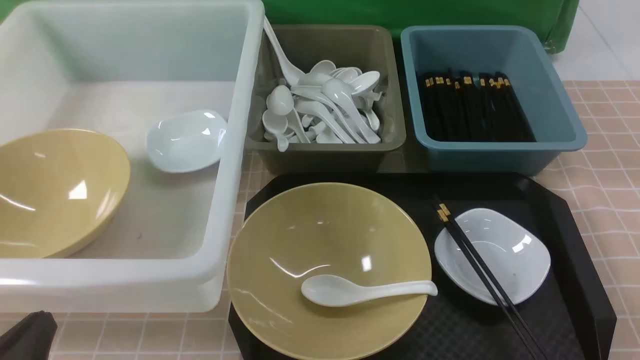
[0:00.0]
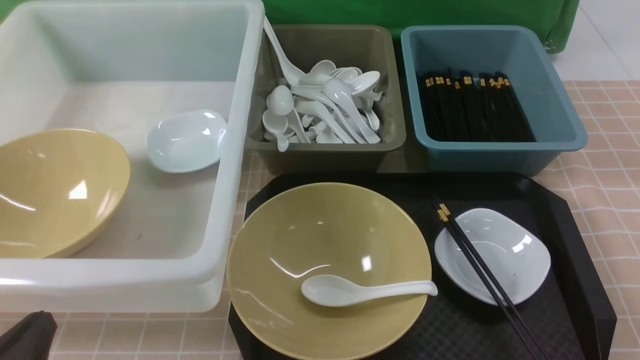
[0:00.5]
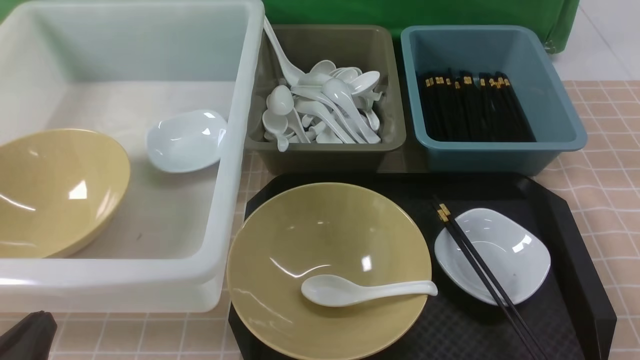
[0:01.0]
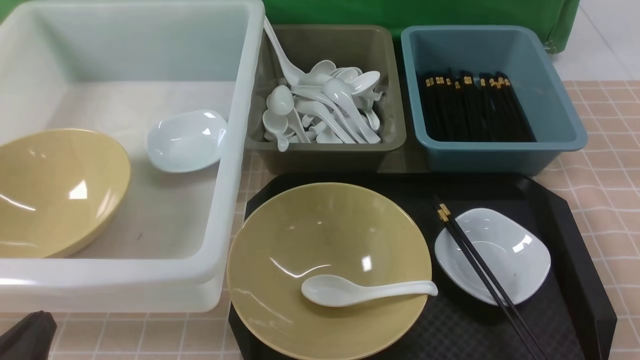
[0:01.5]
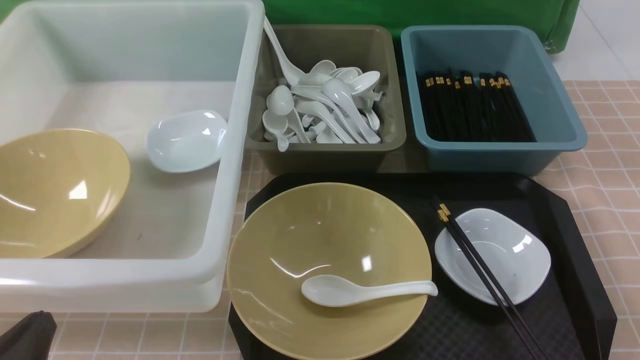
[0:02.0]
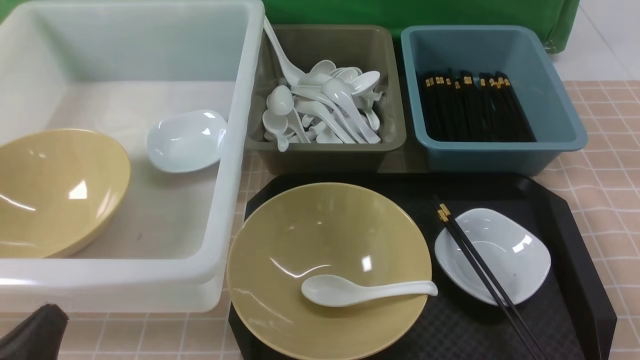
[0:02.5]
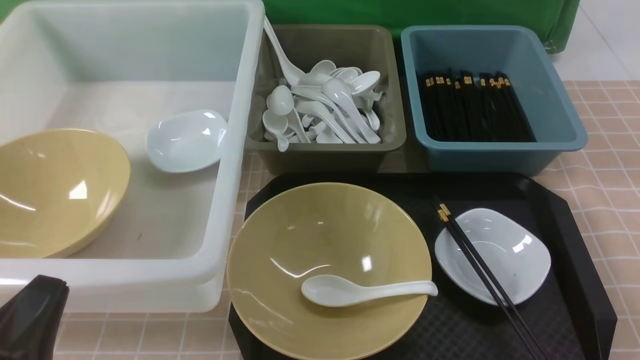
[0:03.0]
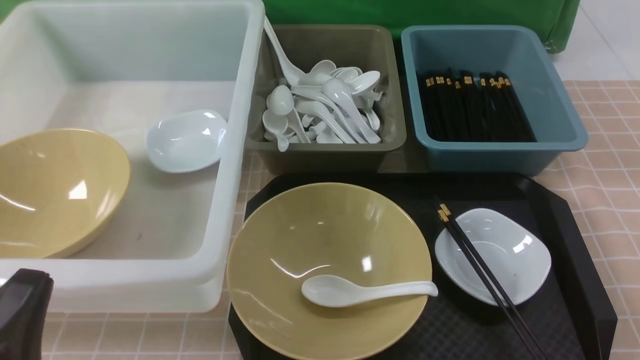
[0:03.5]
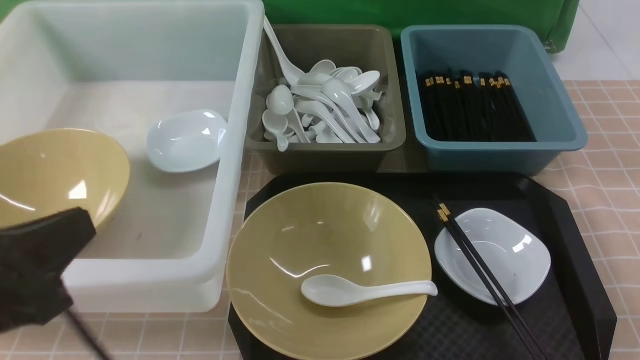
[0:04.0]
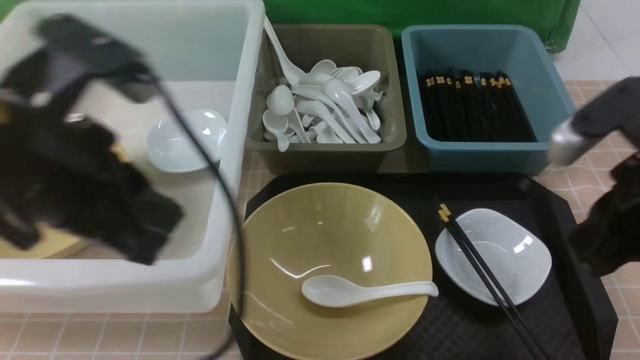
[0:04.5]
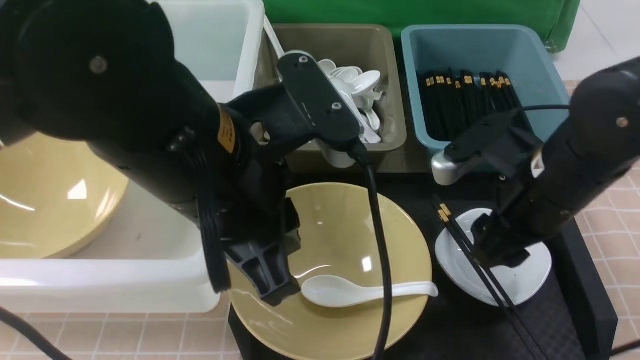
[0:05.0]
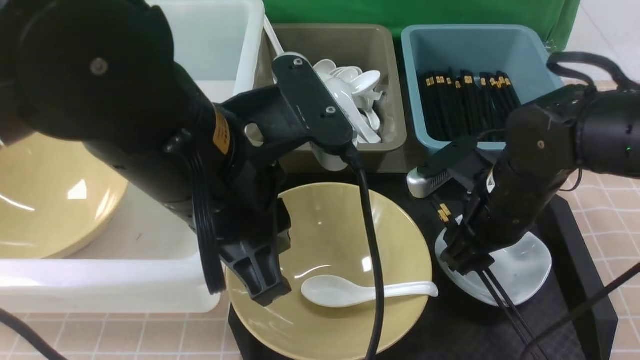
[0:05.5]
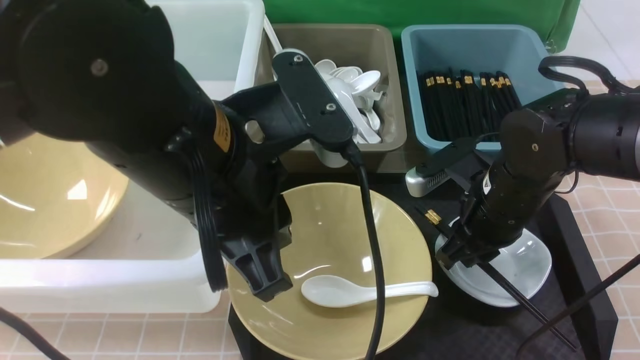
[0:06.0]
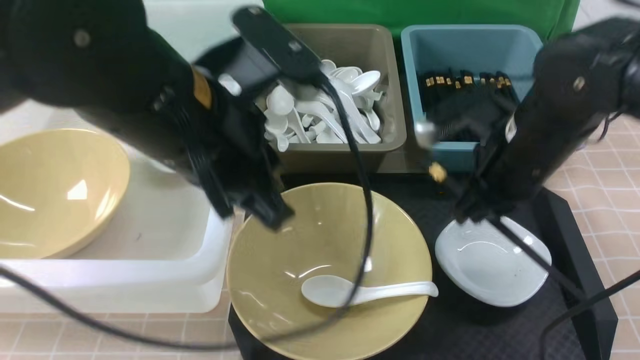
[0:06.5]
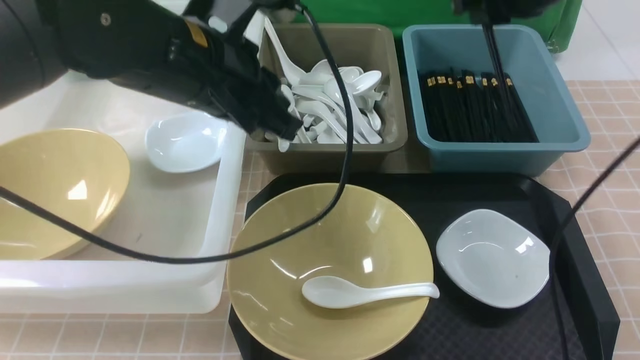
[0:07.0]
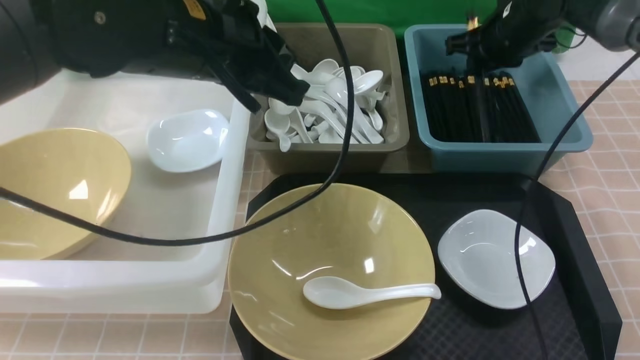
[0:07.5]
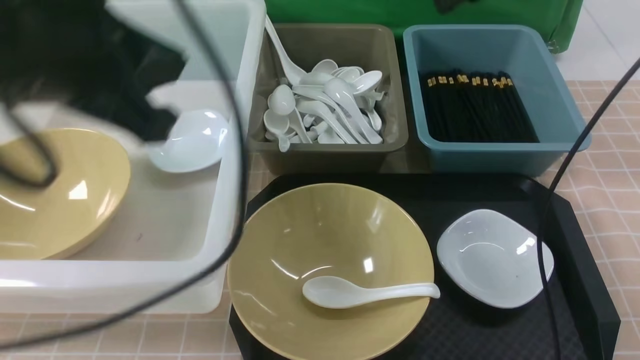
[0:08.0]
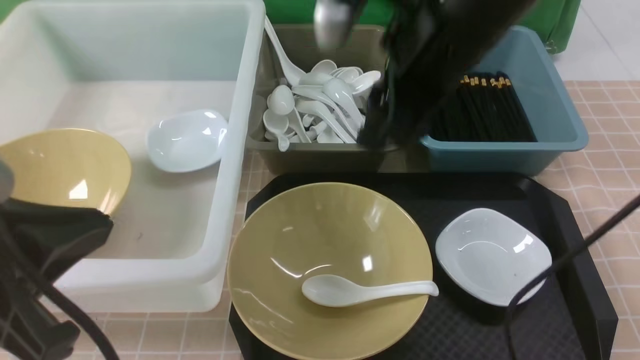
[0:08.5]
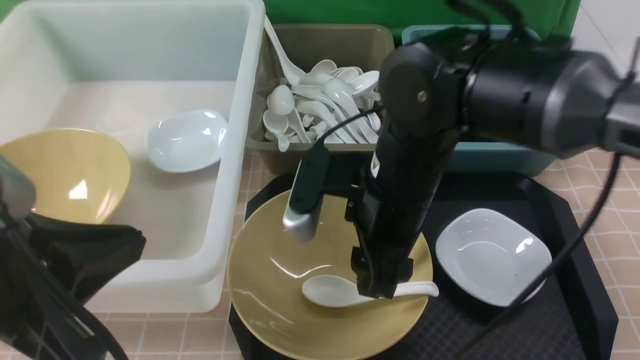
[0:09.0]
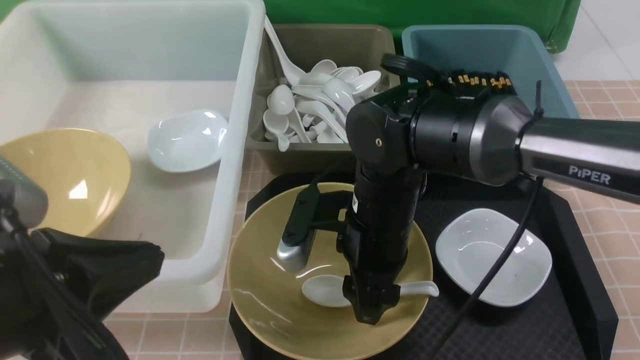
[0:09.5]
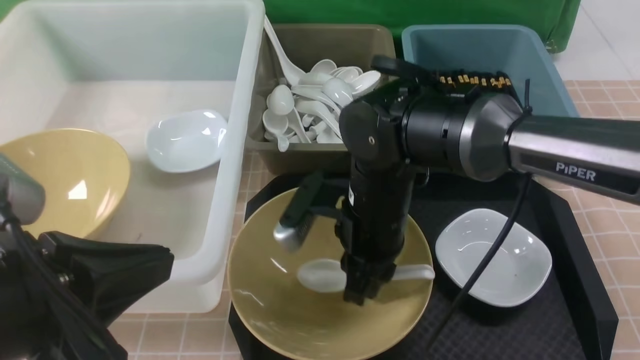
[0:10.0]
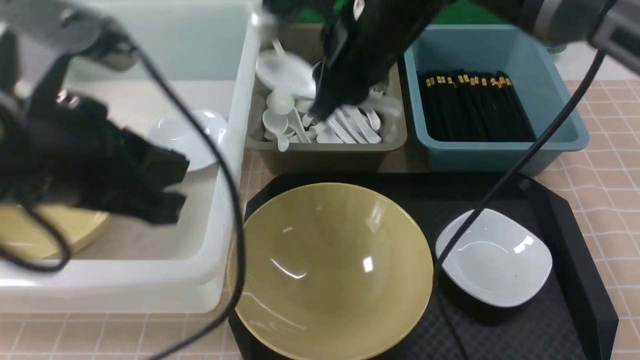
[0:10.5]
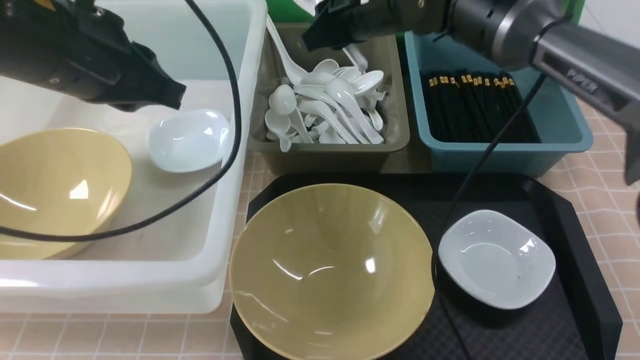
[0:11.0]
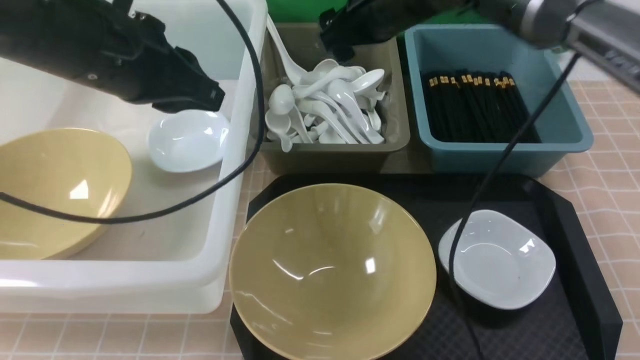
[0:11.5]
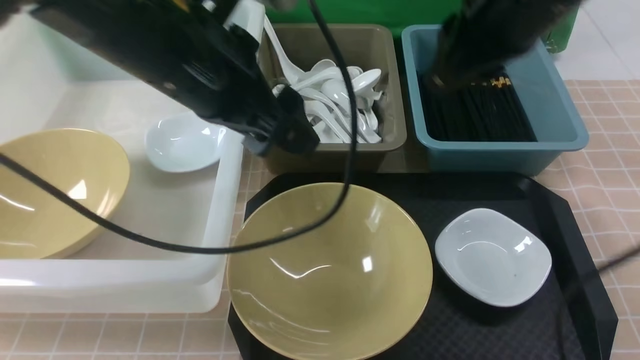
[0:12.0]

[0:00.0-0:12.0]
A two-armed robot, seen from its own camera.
Task of the whole recording: on brown table put chopsticks spoon bowls plates into blue grey white boxes.
Step, 0:00.0 to 0:06.0: use the right arm to grab the chopsticks.
Step, 0:06.5 to 0:07.5: use the right arm to put the chopsticks into the small storage box on the right.
Step, 0:08.0 to 0:10.0: use the right arm to grab the soup spoon in the middle.
Step, 0:10.5 to 0:11.0: use the right arm to put the soup spoon into the small storage box in the middle.
0:00.0 to 0:02.0: Both grippers stay about where they are.
0:02.0 to 0:04.0: The left gripper goes about 15 cm upward.
0:04.0 to 0:06.0: The left gripper moves to the right and forward, roughly 20 cm. Meanwhile the right gripper shifts some 25 cm forward, downward and to the left, and opens.
0:06.0 to 0:08.0: The right gripper is displaced upward and forward by approximately 25 cm, and opens up, while the left gripper heads to the left and upward, covering about 10 cm, and travels forward and back again, approximately 10 cm each way.
0:08.0 to 0:10.0: The left gripper heads backward and downward, covering about 10 cm. Meanwhile the right gripper travels downward, to the left and backward by some 25 cm, and closes.
0:10.0 to 0:12.0: The left gripper heads forward and to the right, covering approximately 20 cm, and opens up. The right gripper goes about 20 cm upward and to the right, and opens, then closes once more.

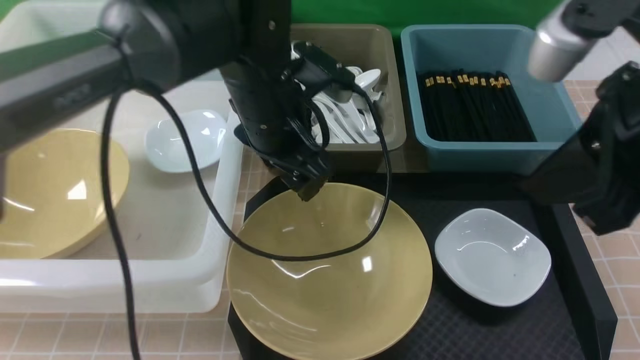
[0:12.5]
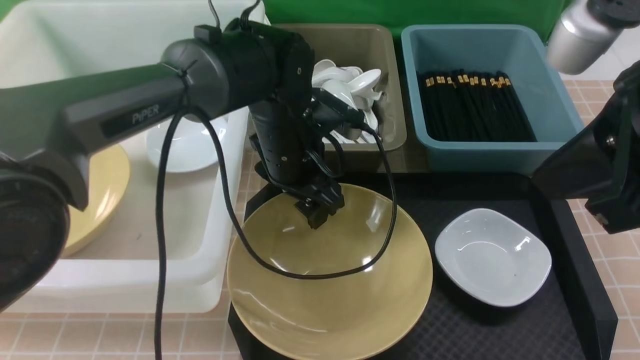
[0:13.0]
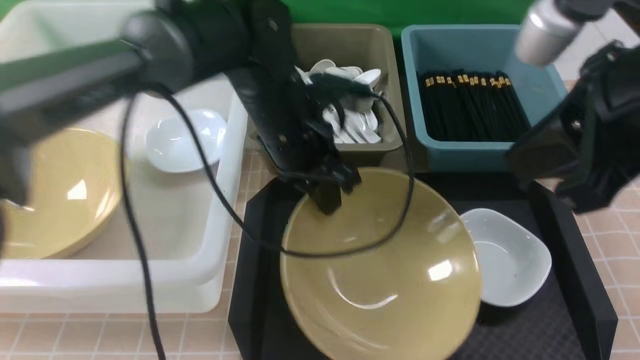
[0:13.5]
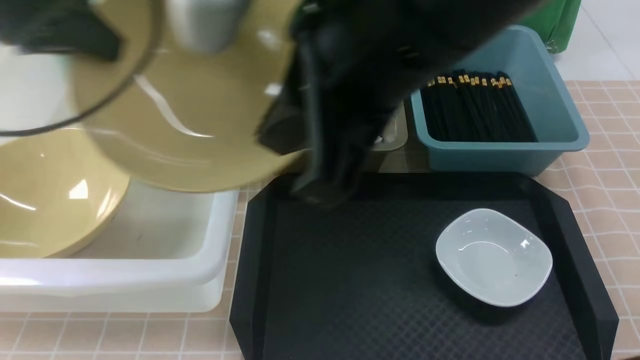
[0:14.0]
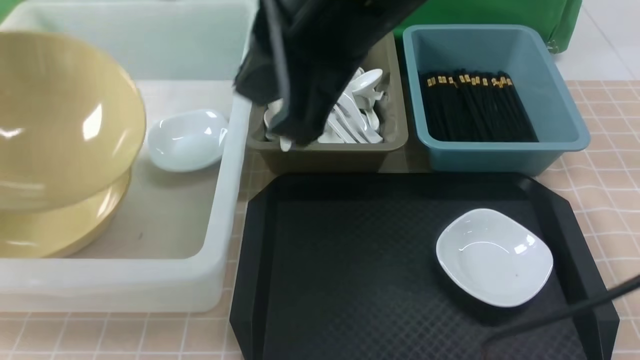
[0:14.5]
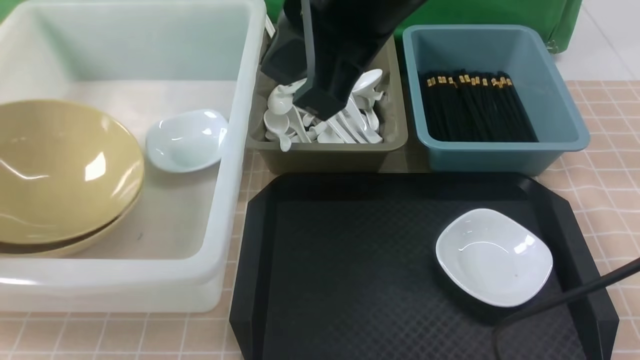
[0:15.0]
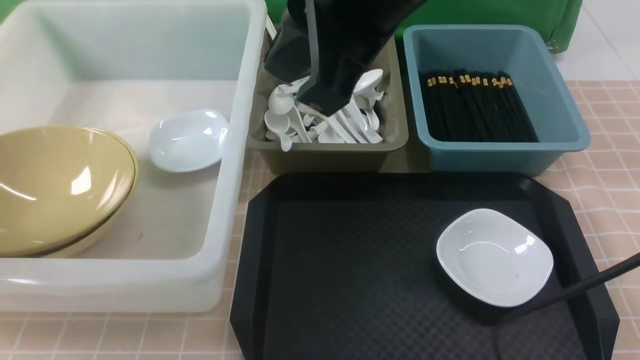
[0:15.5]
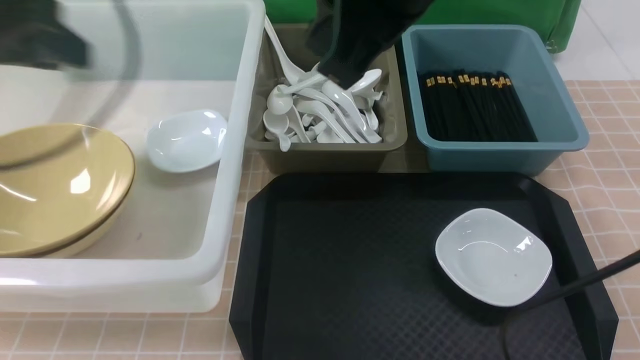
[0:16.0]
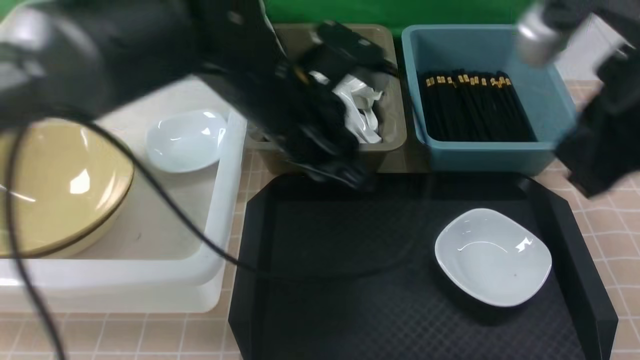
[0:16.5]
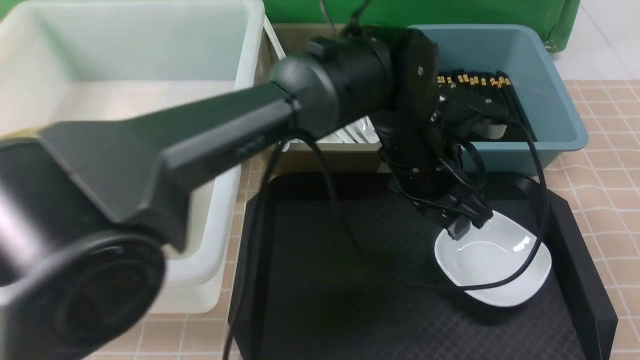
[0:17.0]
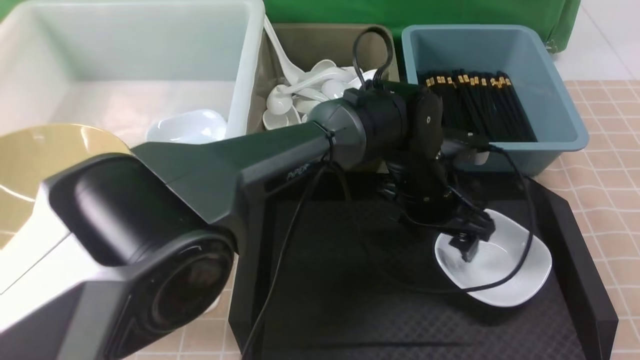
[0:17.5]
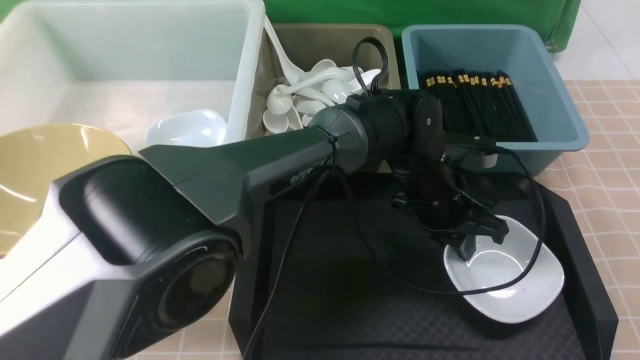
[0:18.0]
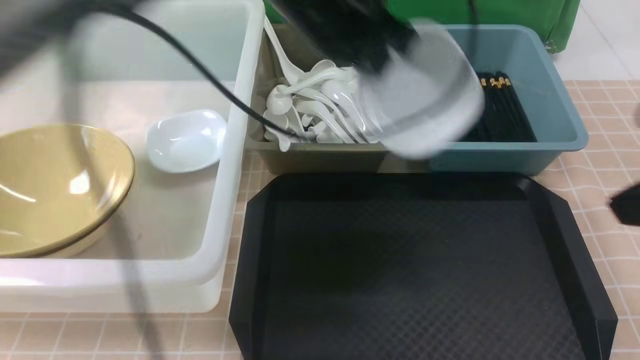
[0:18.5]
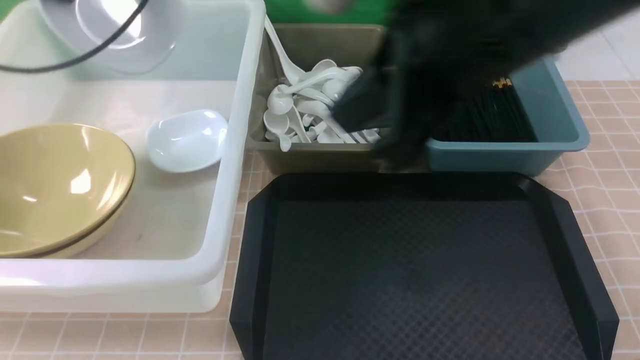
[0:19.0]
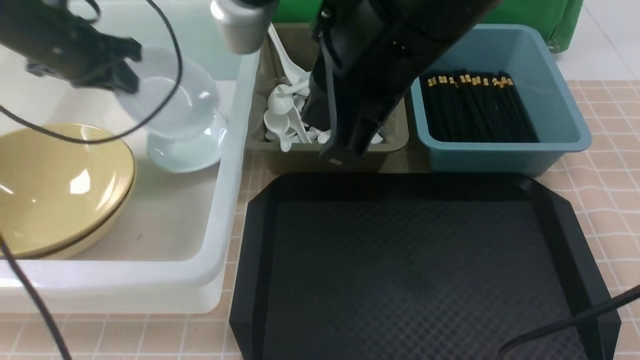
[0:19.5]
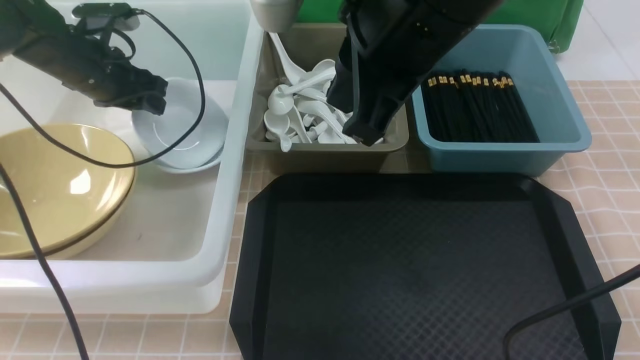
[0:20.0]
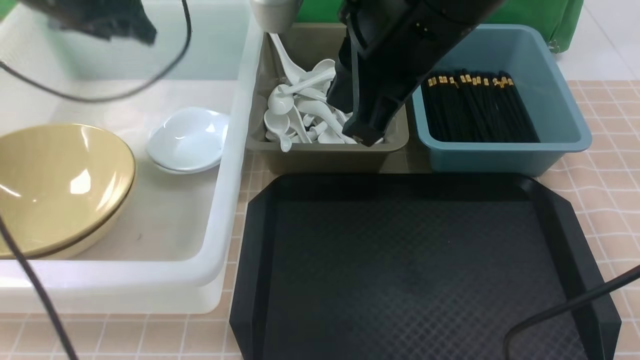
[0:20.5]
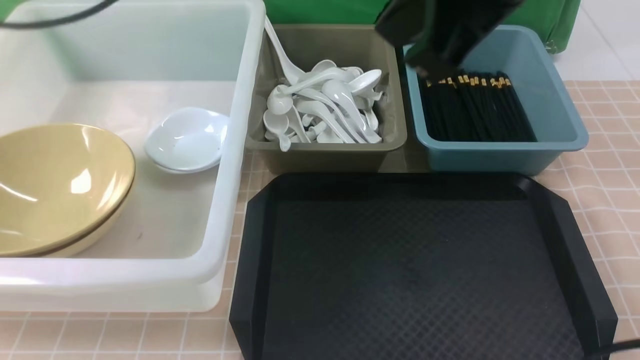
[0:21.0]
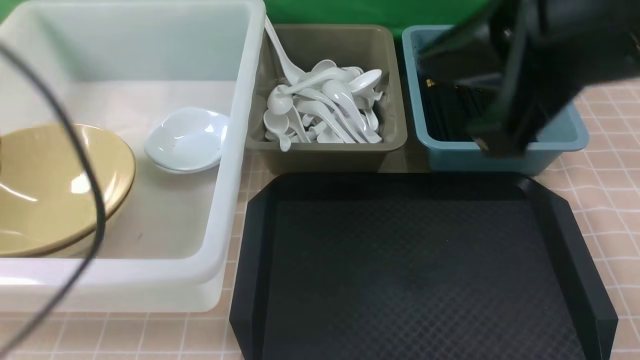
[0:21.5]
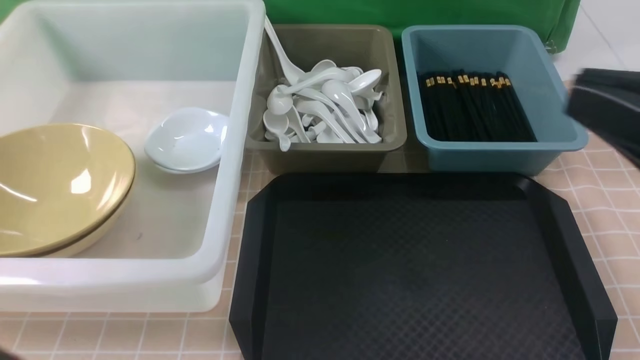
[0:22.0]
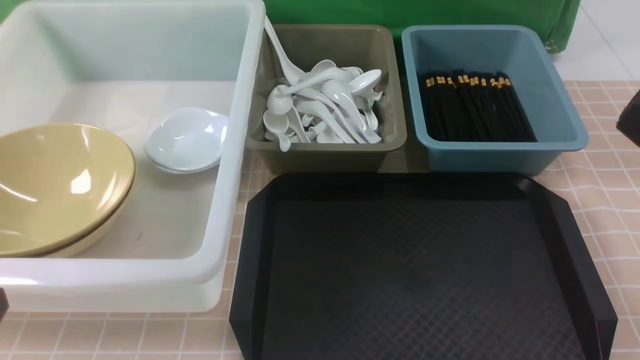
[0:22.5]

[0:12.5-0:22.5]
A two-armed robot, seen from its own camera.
Task of the whole recording: on brown table put chopsticks spoon bowls plates into blue grey white boxes.
Step, 0:13.5 to 0:15.5: use the left arm to put the noodle bowl into the large storage box on the left.
Step, 0:16.0 to 0:18.0: use the left arm to grab the plate.
Step, 0:18.5 to 0:20.0: use the left arm to put the plate into the large storage box on the left.
0:12.5 to 0:14.5: The left gripper heads to the left, covering roughly 35 cm, and closes, while the right gripper shifts some 15 cm to the left.
0:14.5 to 0:16.5: The right gripper shifts about 20 cm to the right. The left gripper shifts some 40 cm to the right, and opens, then closes once more.
0:16.5 to 0:18.5: The left gripper travels upward and forward by roughly 10 cm, and opens, then closes again.
0:18.5 to 0:20.5: The right gripper moves to the left and forward, about 20 cm. The left gripper heads to the left, covering about 20 cm, and opens its fingers.
0:20.5 to 0:22.5: The left gripper travels backward by some 40 cm, and closes its fingers; the right gripper travels backward and to the right by about 25 cm.
